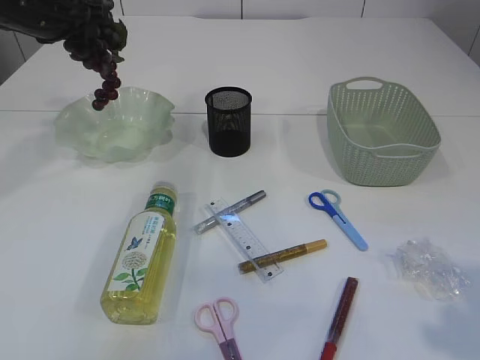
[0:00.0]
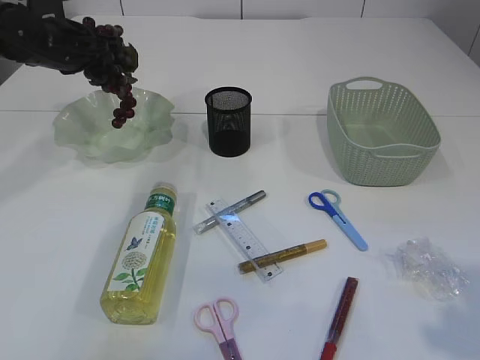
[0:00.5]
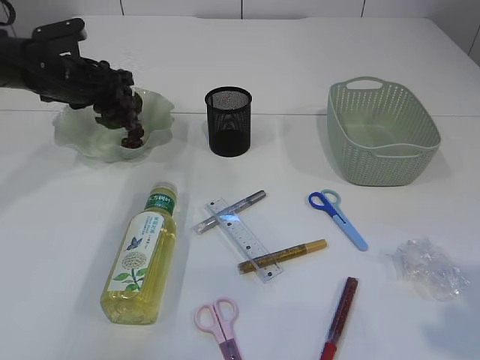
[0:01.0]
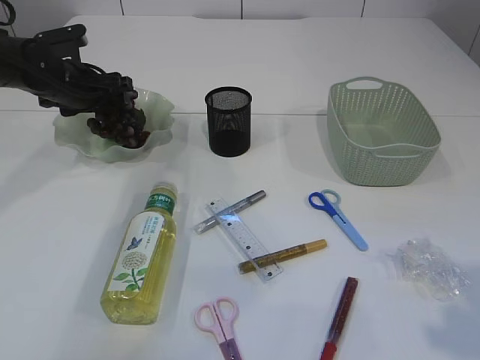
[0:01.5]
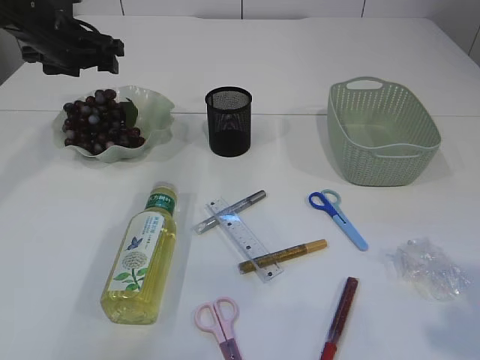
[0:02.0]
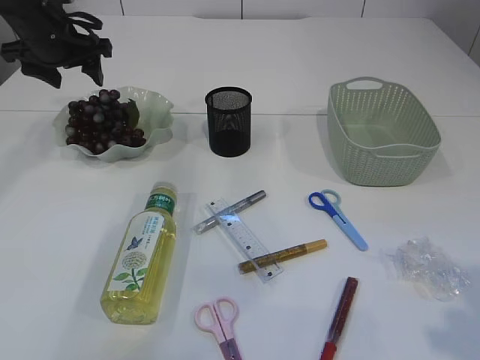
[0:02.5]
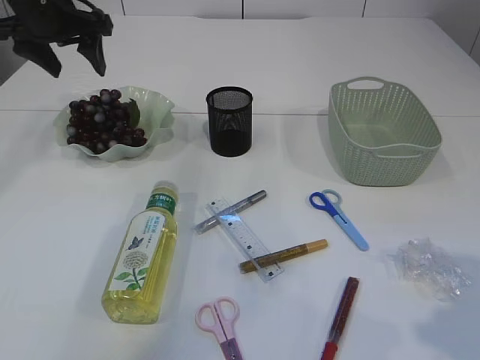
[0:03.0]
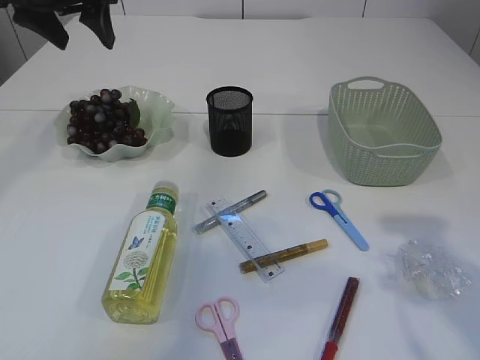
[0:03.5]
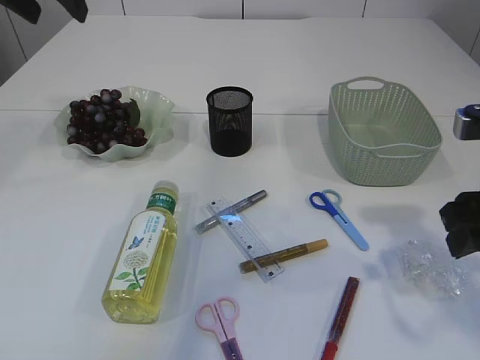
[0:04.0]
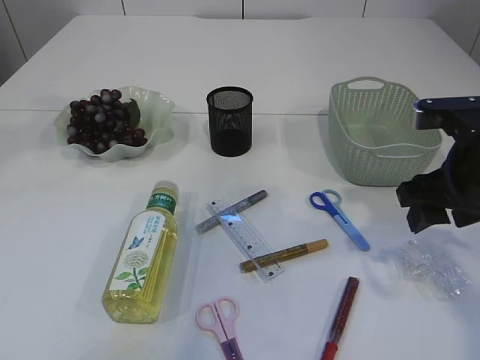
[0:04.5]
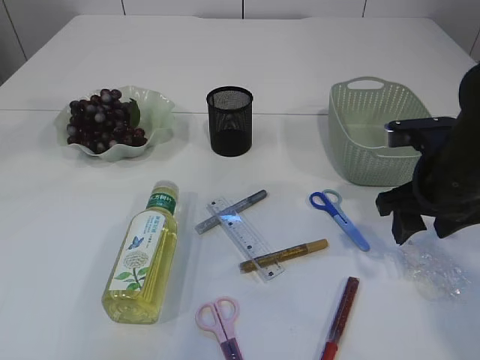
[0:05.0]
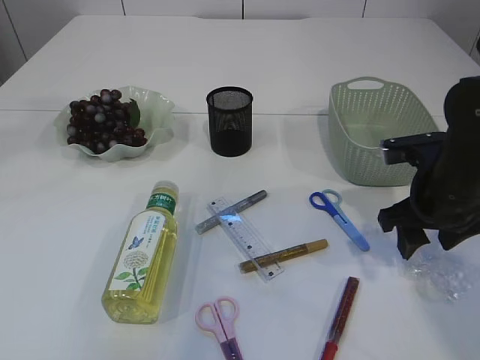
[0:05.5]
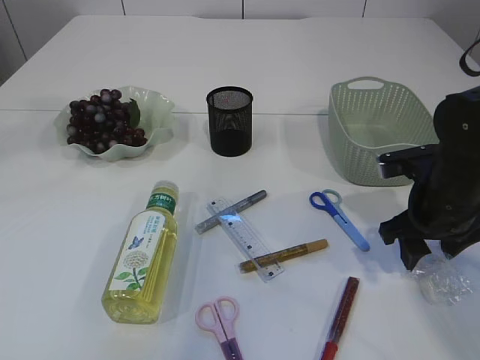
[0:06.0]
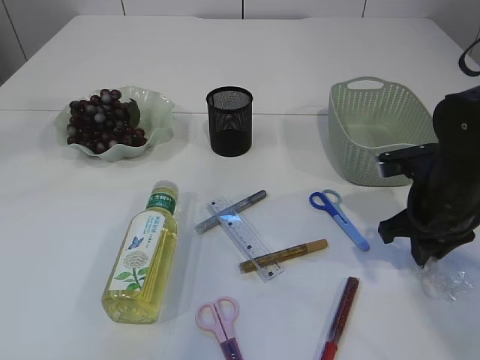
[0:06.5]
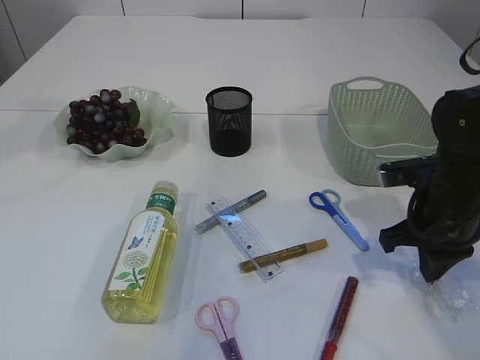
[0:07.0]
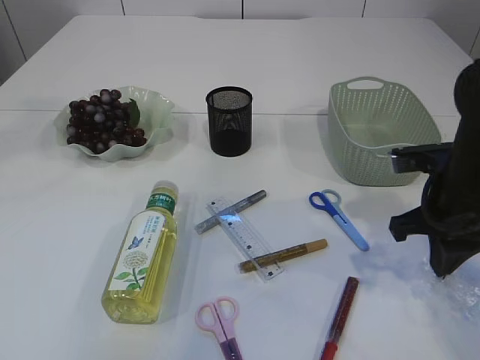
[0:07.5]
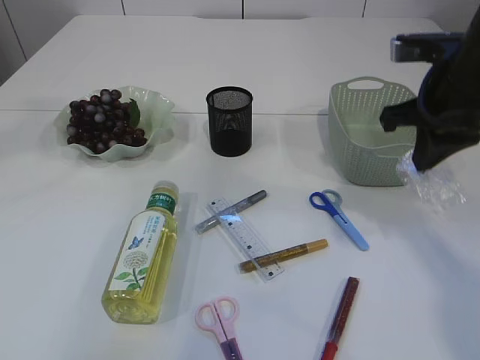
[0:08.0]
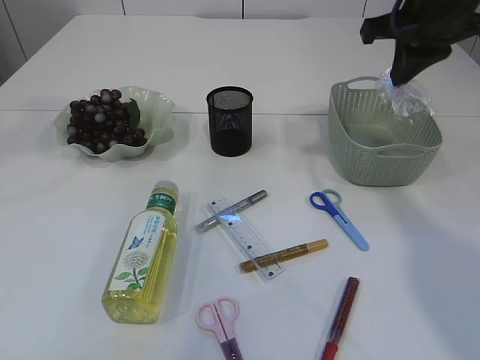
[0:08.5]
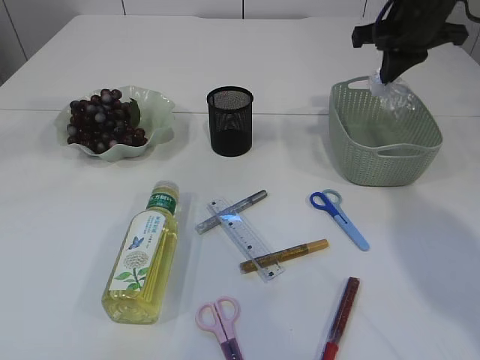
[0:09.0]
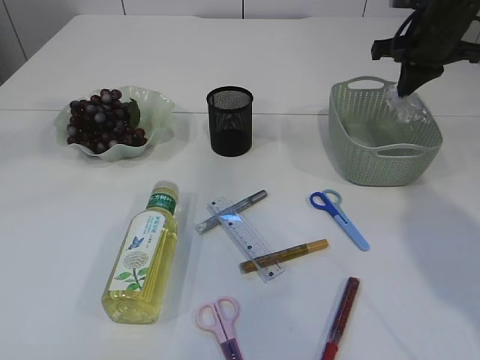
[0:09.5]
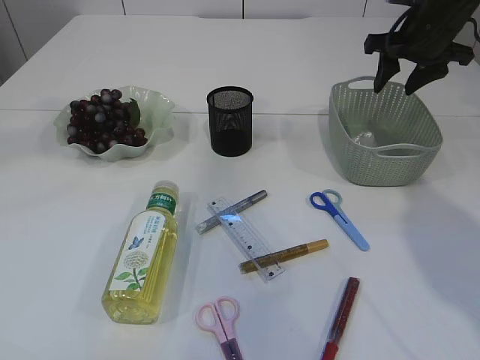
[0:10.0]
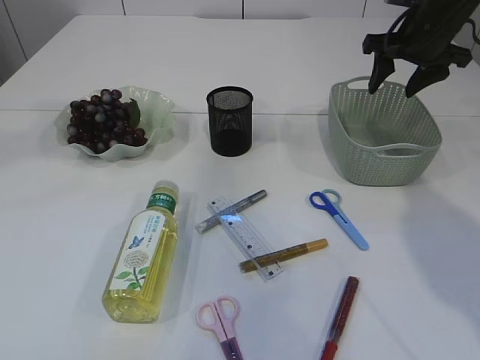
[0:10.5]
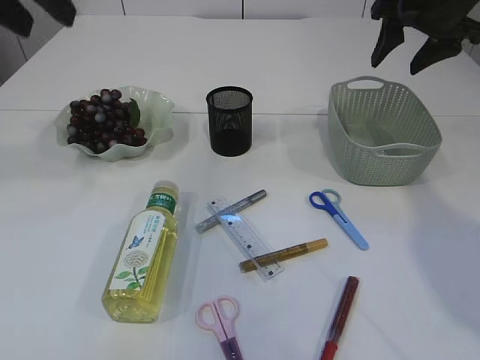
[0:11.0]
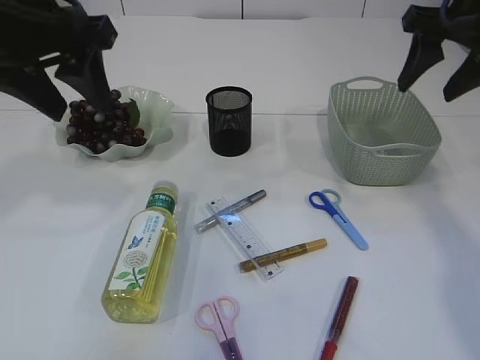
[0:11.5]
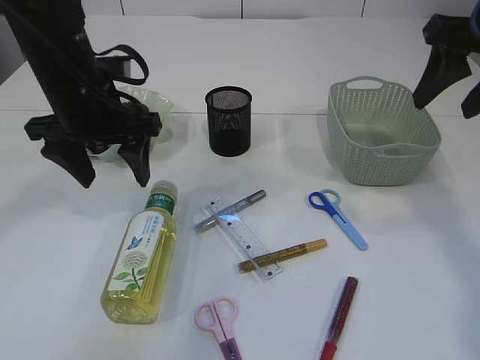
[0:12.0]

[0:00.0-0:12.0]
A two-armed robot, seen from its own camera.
Step, 0:00.0 to 0:02.0: Place the grapes in the plate.
Step, 0:02.5 to 0:07.5: Pick up the plastic.
Step, 0:08.0 to 0:11.0: Place the plastic in the basket.
0:00.0 to 0:02.0: The left gripper heads downward, covering roughly 5 cm, and opens up.
0:02.0 to 0:04.0: The left gripper moves upward and backward, some 20 cm, while the right gripper heads forward and downward, covering roughly 15 cm.
0:04.0 to 0:06.0: The right gripper heads downward and forward, covering approximately 15 cm, while the left gripper moves upward, about 5 cm.
0:06.0 to 0:08.0: The right gripper travels upward by some 15 cm, and closes.
0:08.0 to 0:10.0: The right gripper travels forward by about 15 cm, and opens its fingers.
0:10.0 to 0:12.0: The right gripper moves backward and upward, some 15 cm. The left gripper travels downward by some 20 cm, and opens.

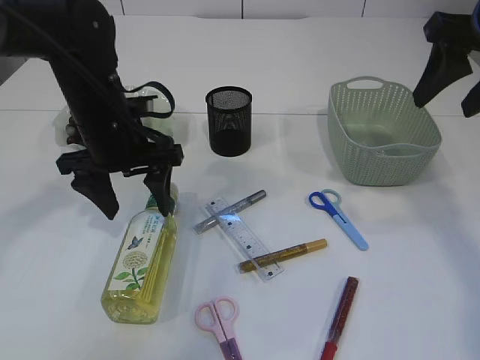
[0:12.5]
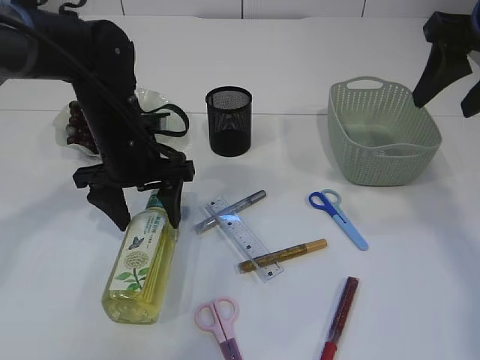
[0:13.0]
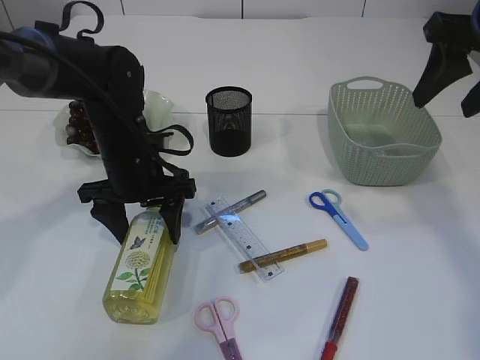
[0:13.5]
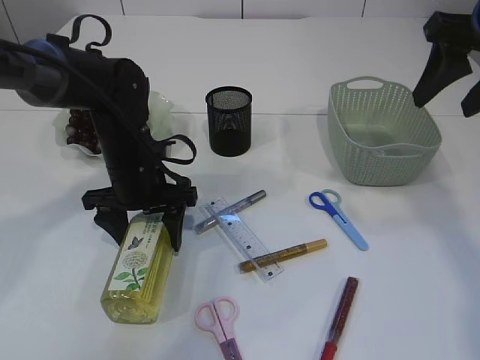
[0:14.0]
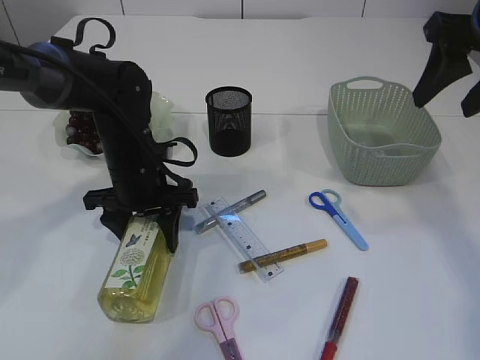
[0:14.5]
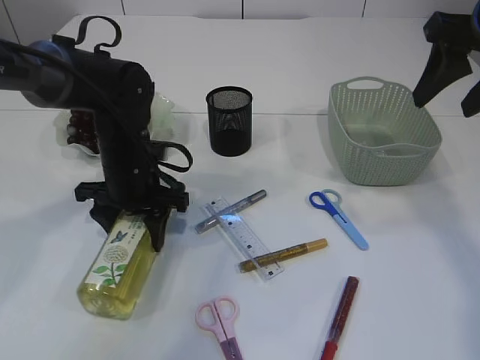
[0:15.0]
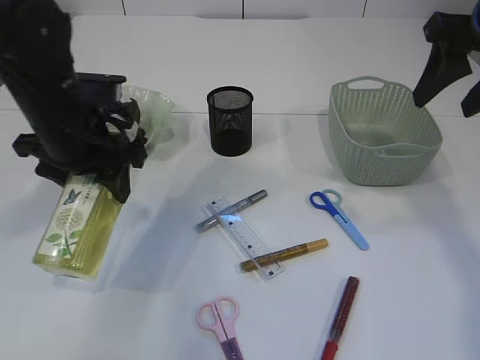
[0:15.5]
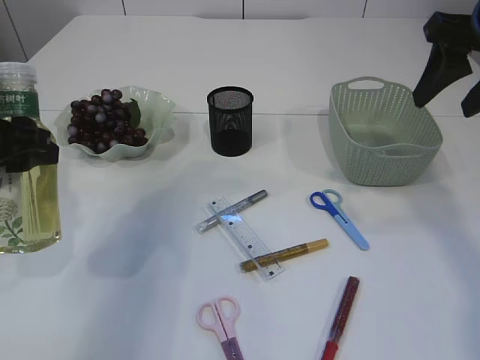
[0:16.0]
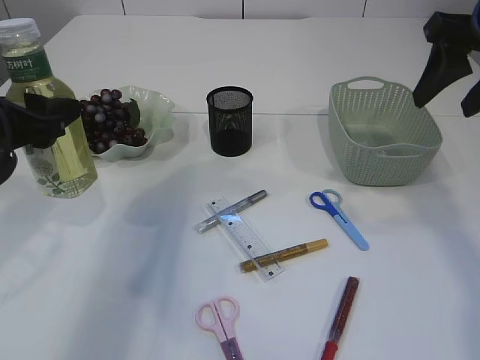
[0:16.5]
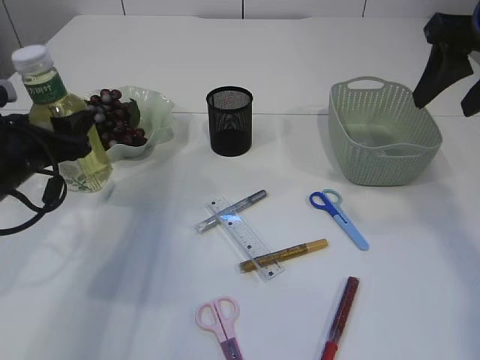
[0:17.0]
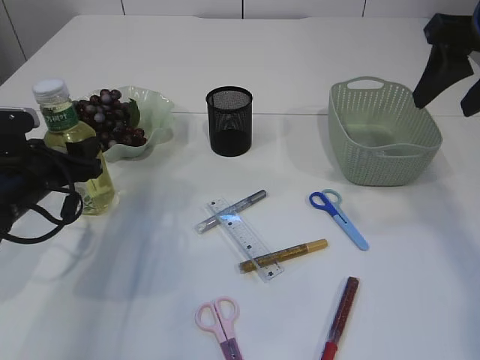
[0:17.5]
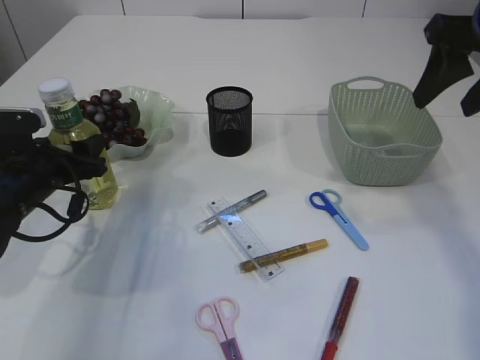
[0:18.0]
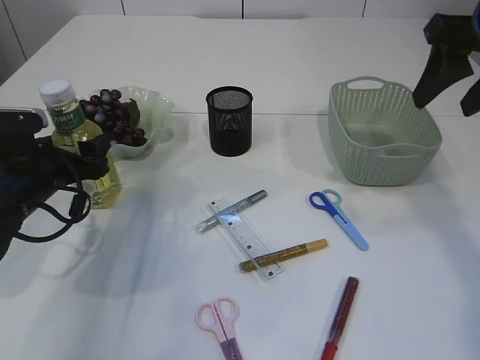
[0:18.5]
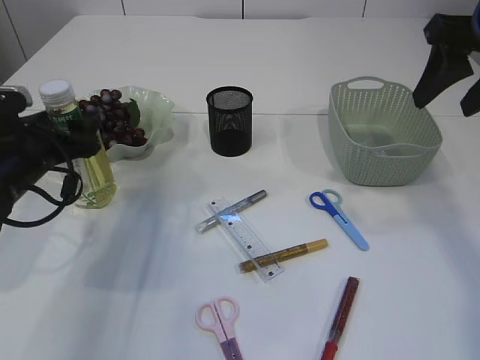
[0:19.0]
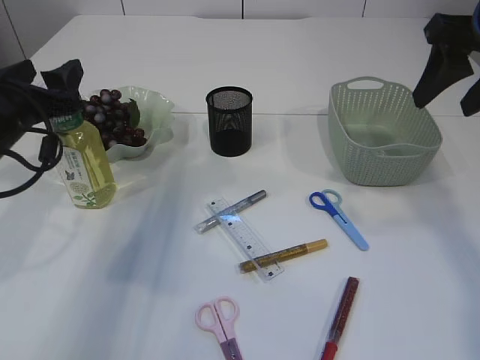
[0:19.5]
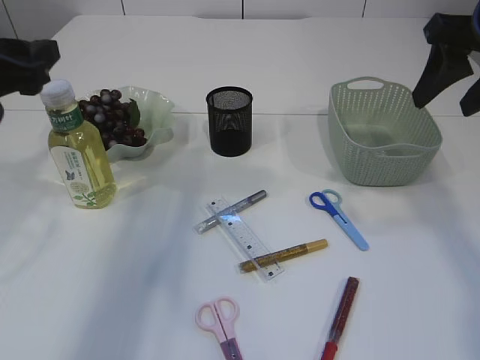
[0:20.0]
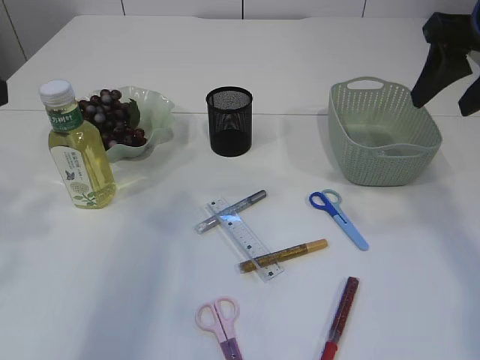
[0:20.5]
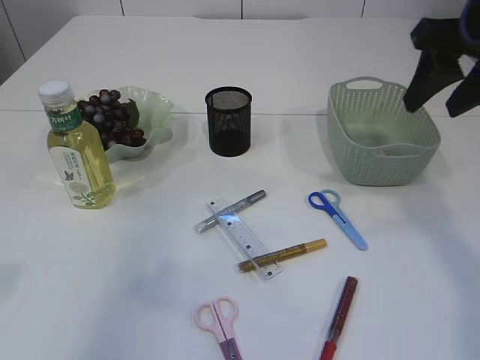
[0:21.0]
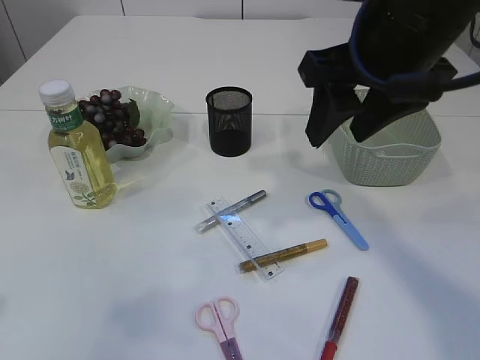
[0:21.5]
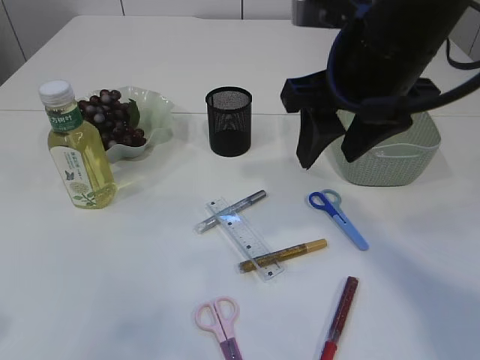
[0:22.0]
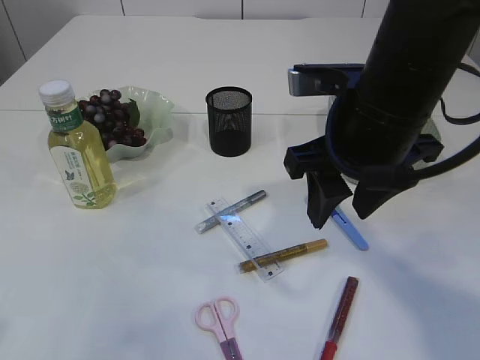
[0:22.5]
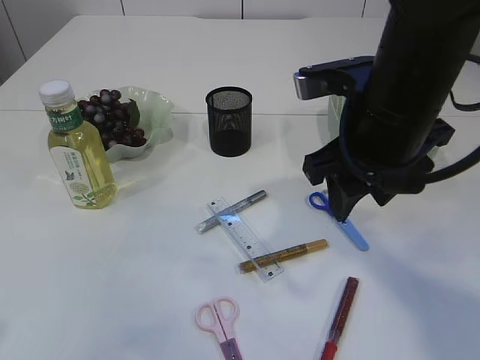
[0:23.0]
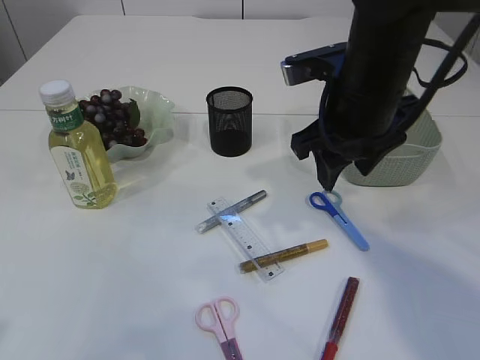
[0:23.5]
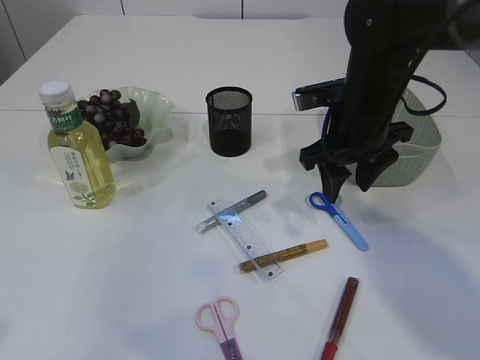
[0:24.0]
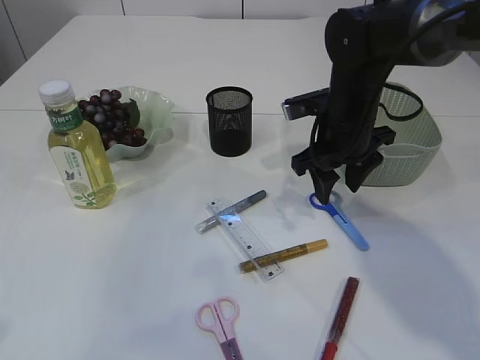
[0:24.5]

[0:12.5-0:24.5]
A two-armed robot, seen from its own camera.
Step, 0:12.5 to 0:15.5: Pick up the bottle with the left arm.
Step, 0:16.0 to 0:20.0: Place the bottle.
0:12.5 to 0:14.5: The left gripper shifts about 10 cm downward.
0:14.5 to 0:16.5: The left gripper moves to the left, upward and backward, some 20 cm.
0:16.5 to 0:18.5: The left gripper moves downward and forward, some 15 cm.
0:18.5 to 0:20.5: The left gripper goes about 25 cm upward and backward.
0:20.5 to 0:22.5: The right gripper shifts approximately 15 cm to the left and downward. The left gripper shifts about 10 cm backward.
0:22.5 to 0:24.5: The right gripper goes some 15 cm forward and downward.

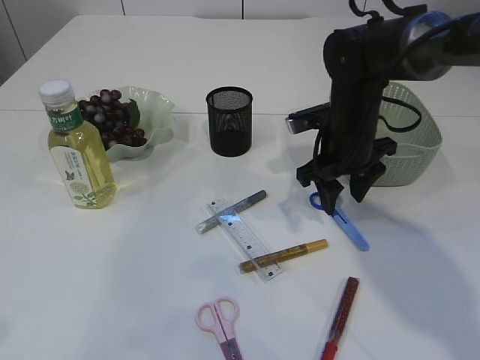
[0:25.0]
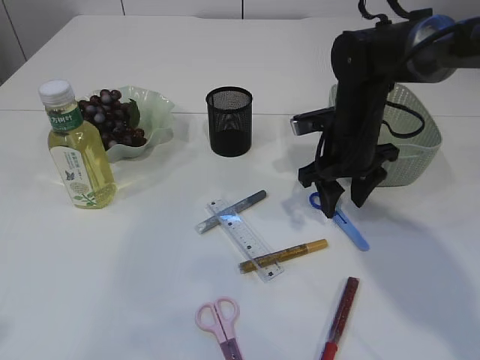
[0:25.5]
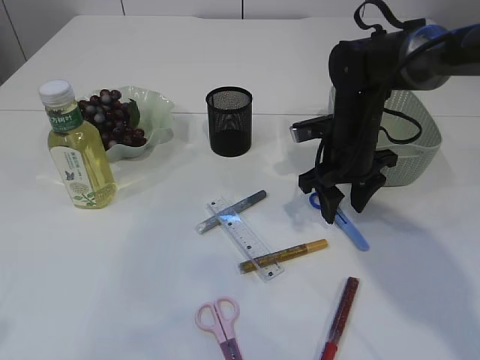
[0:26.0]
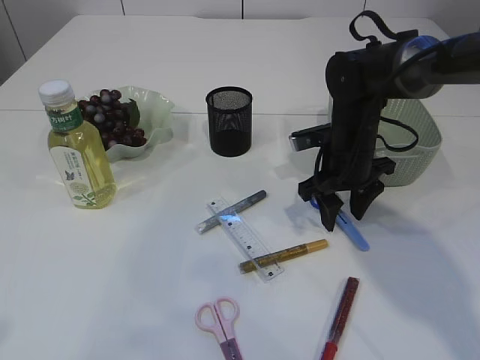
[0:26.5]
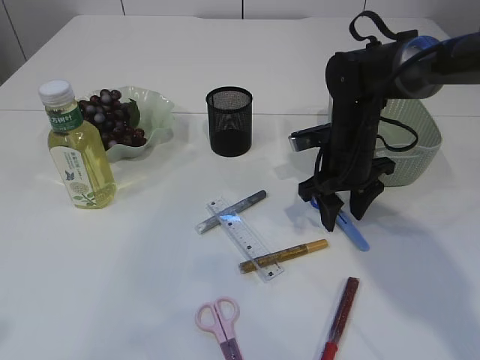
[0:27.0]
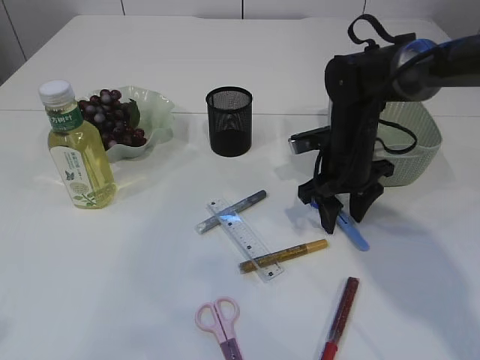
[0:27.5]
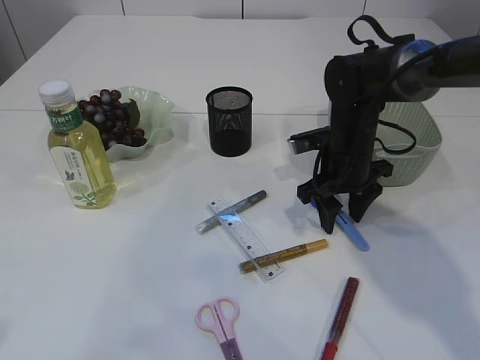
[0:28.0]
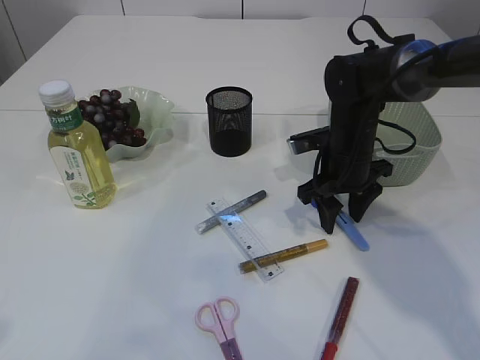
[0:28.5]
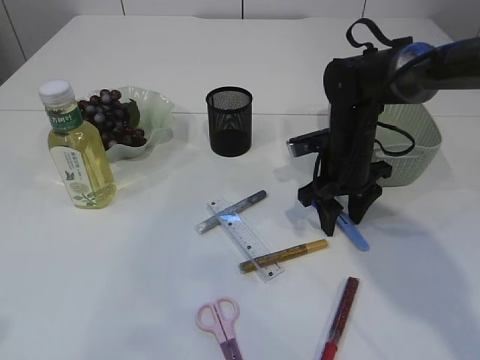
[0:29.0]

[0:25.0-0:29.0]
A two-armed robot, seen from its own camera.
0:25.0 to 0:27.0: The grippers make only small movements.
0:27.0 to 0:29.0: Both grippers stay about where they are.
